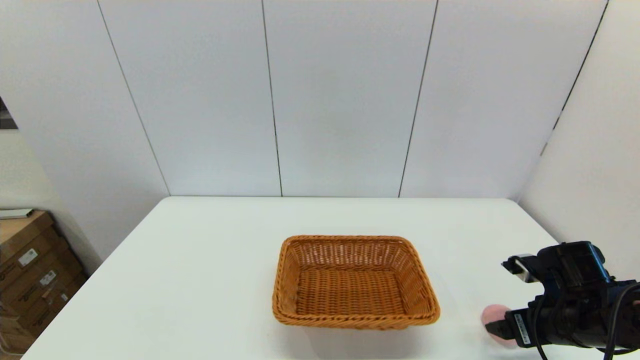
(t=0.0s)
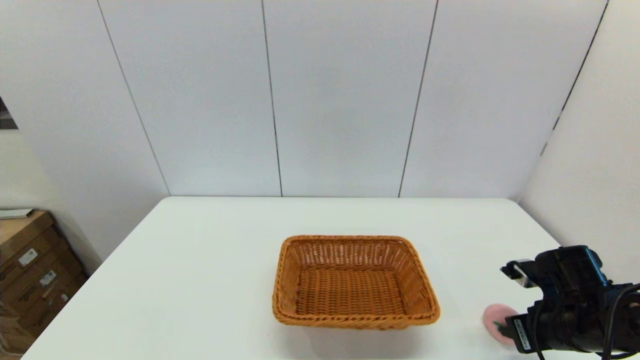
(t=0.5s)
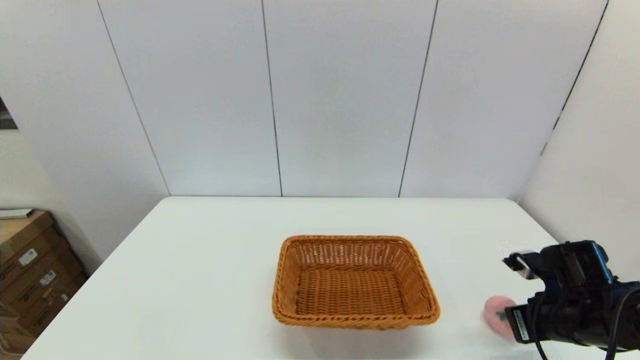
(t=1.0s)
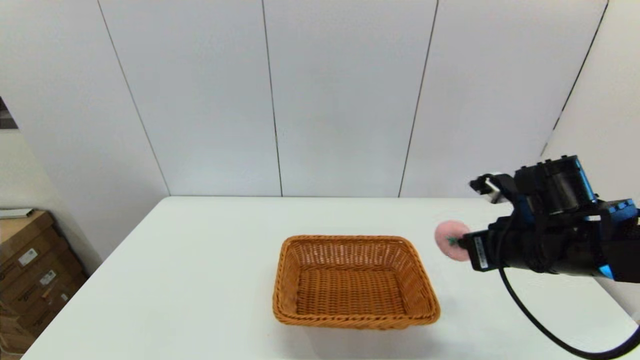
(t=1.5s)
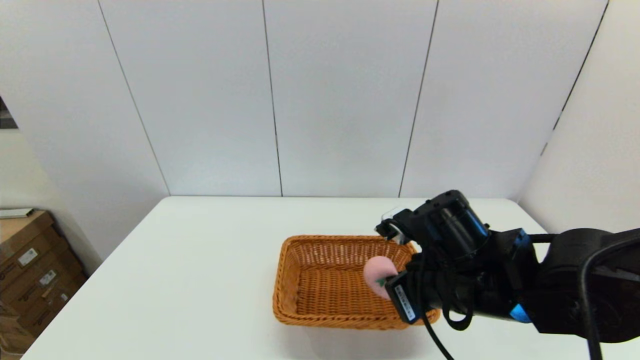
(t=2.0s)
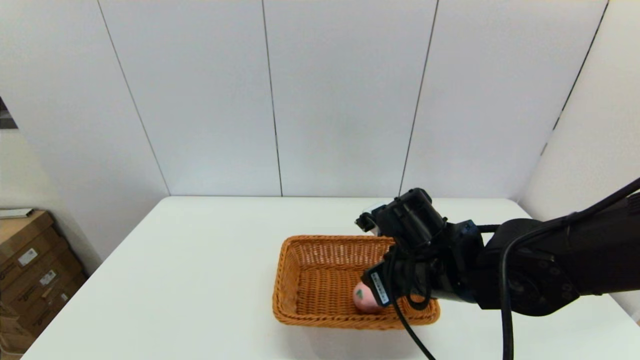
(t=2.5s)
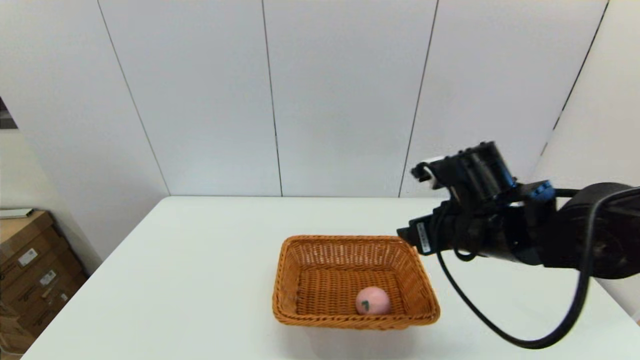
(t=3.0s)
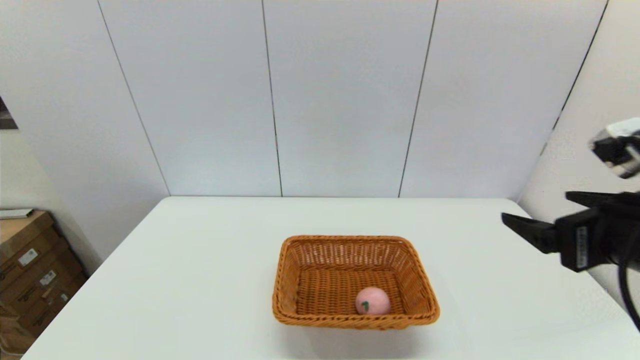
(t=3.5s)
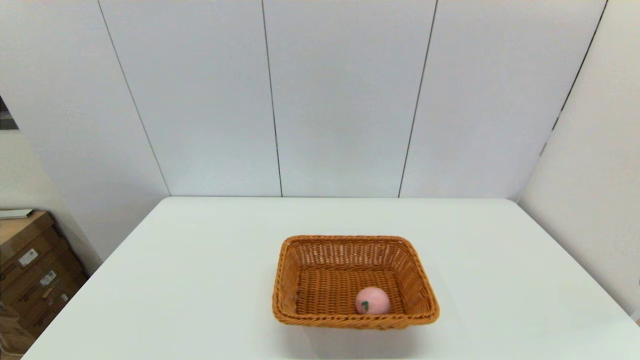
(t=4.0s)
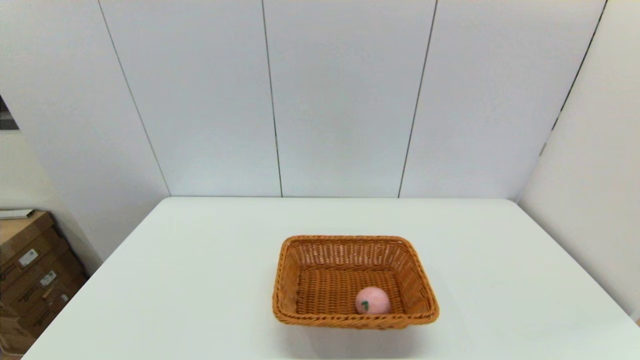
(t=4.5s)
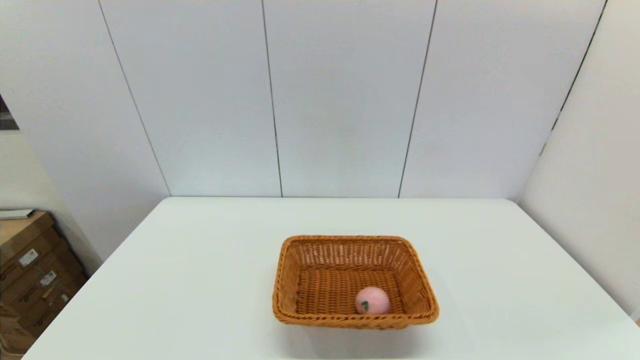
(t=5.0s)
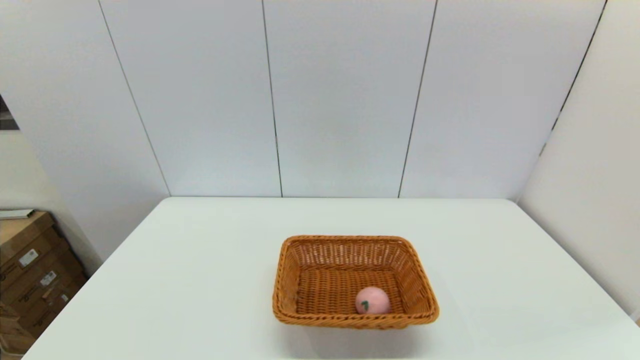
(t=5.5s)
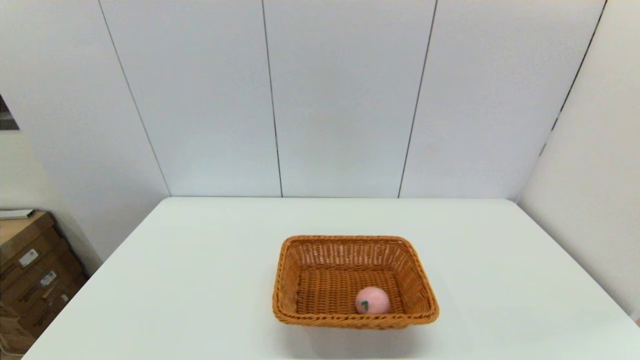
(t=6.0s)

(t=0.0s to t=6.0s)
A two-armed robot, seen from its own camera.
Step, t=1.0s - t=2.5s: Place the peach into the light basket with the right gripper.
t=0.0s - t=2.0s: The right gripper is displaced to the left and upward by roughly 20 cm, and closes up.
t=2.0s - t=4.0s: The right gripper is displaced to the right and backward by some 25 cm, and opens.
